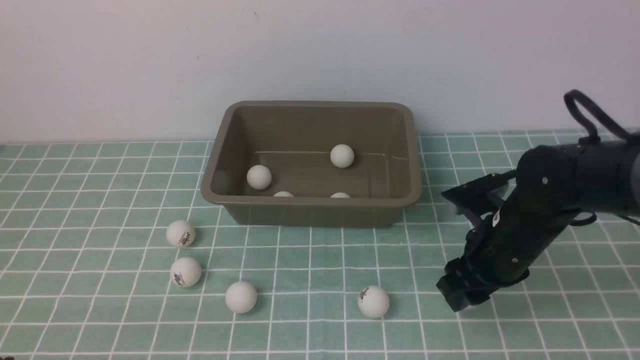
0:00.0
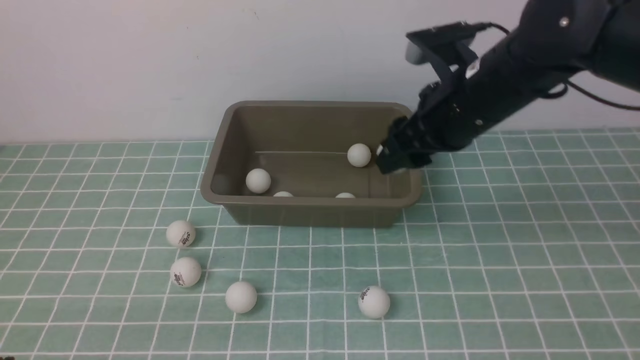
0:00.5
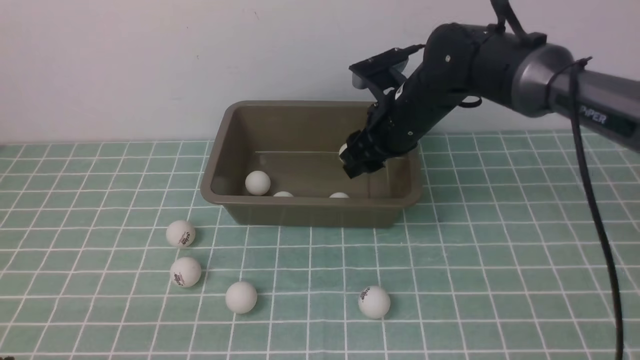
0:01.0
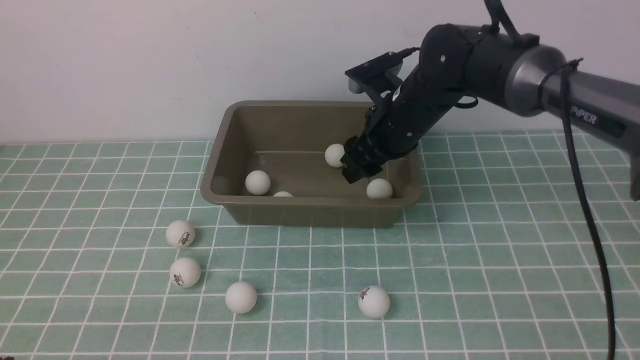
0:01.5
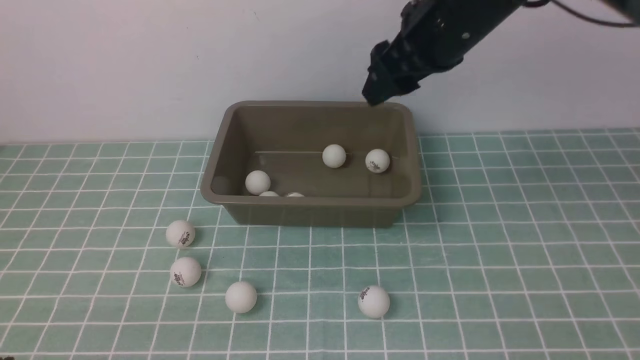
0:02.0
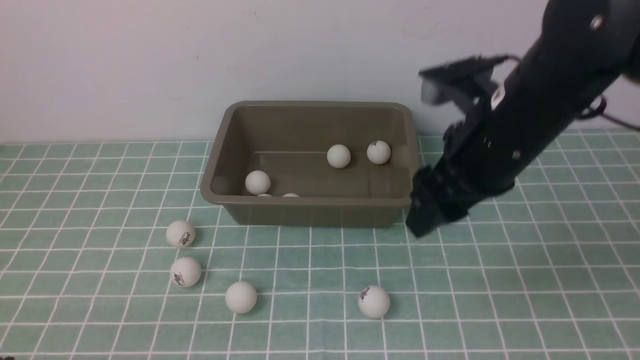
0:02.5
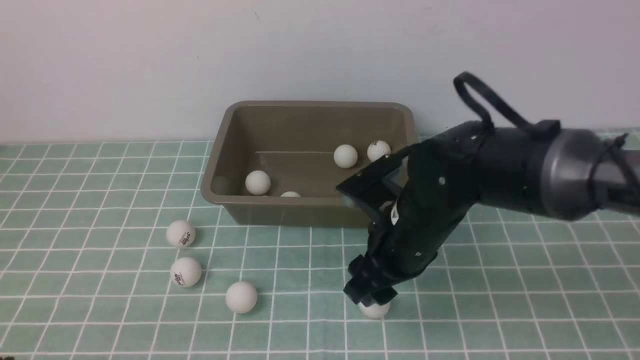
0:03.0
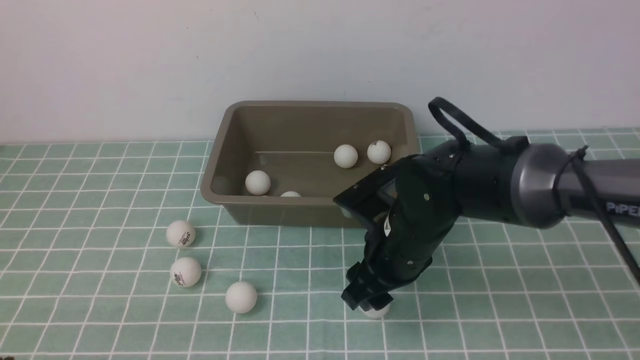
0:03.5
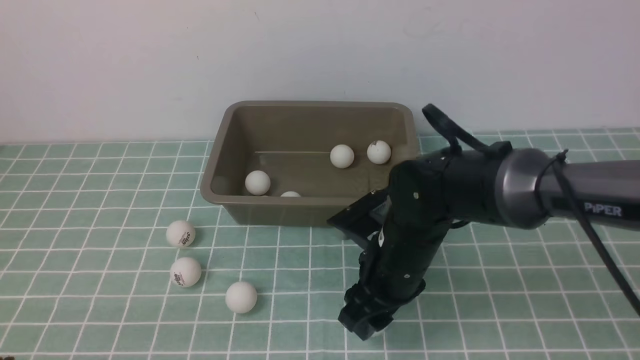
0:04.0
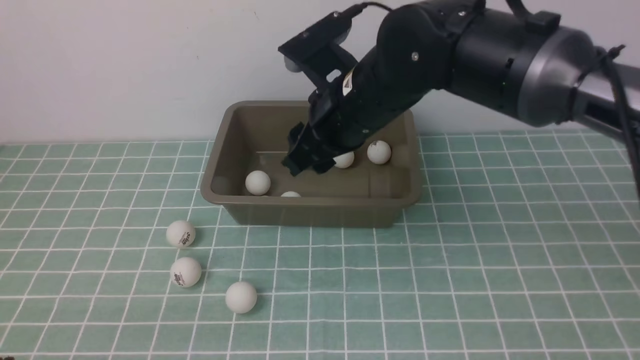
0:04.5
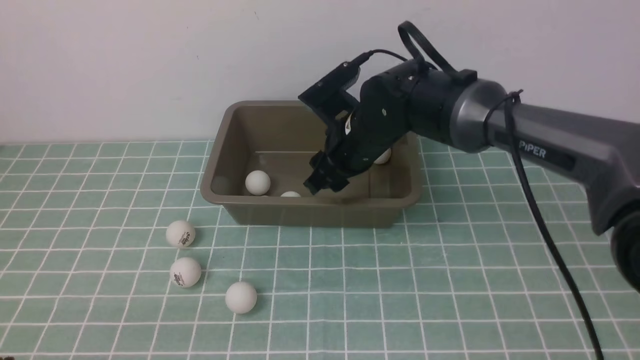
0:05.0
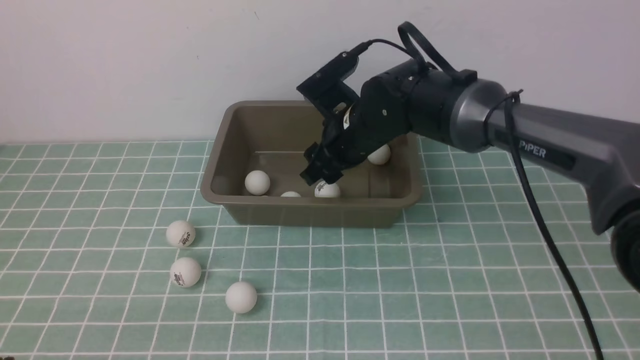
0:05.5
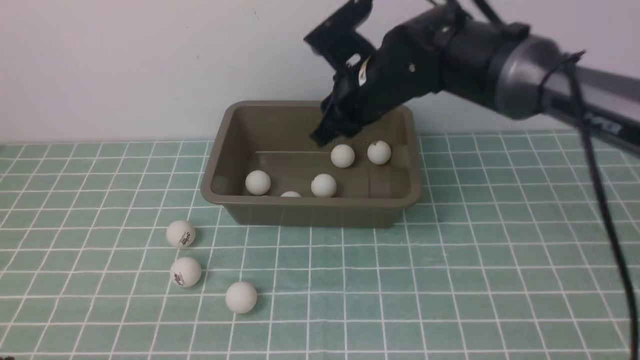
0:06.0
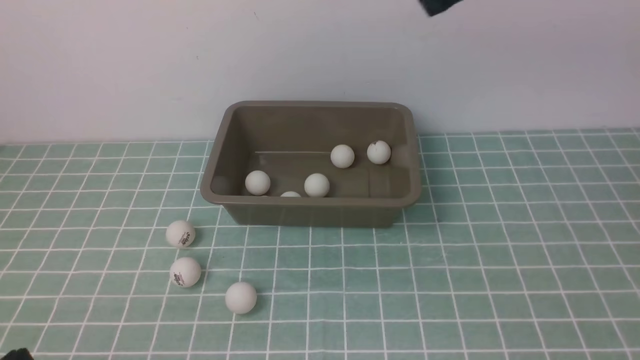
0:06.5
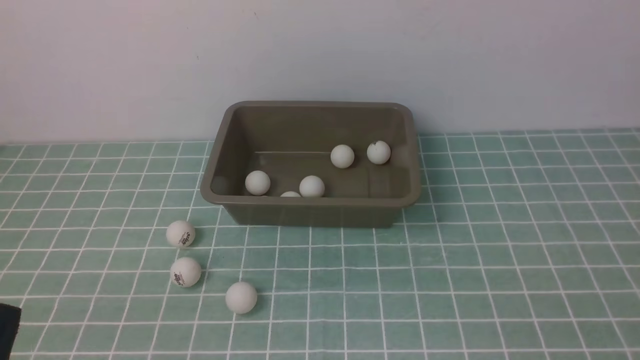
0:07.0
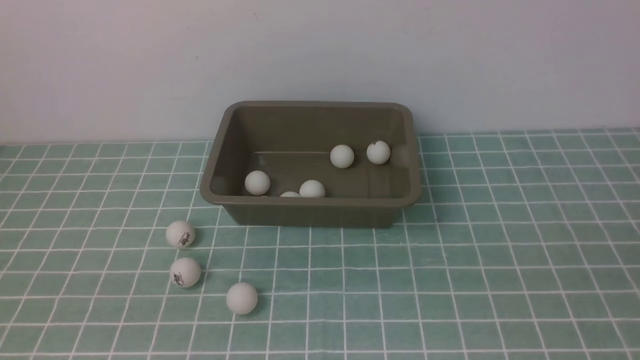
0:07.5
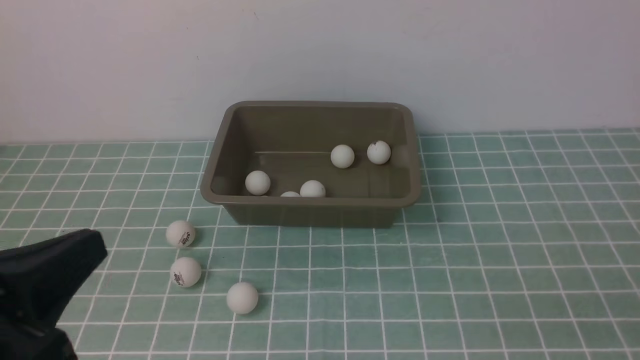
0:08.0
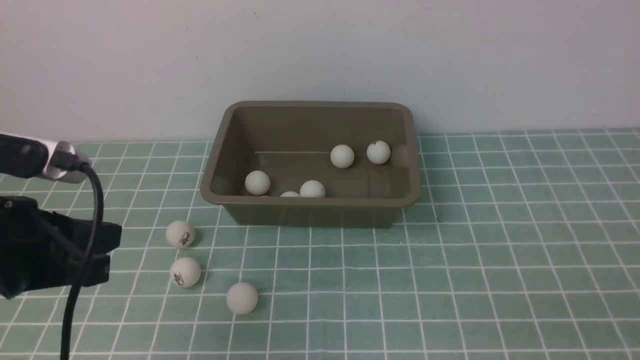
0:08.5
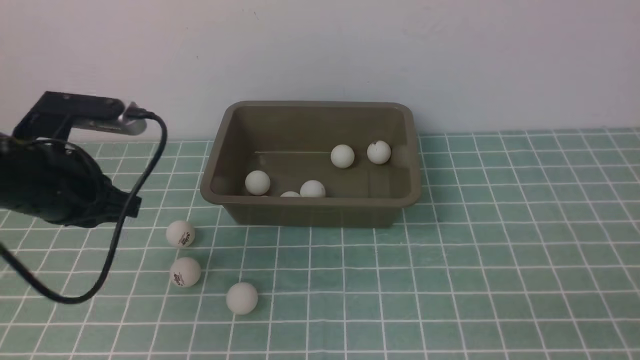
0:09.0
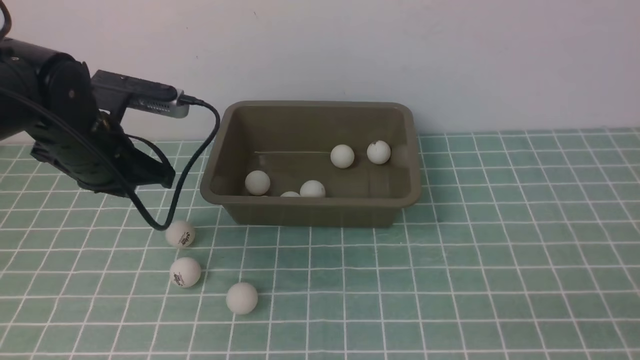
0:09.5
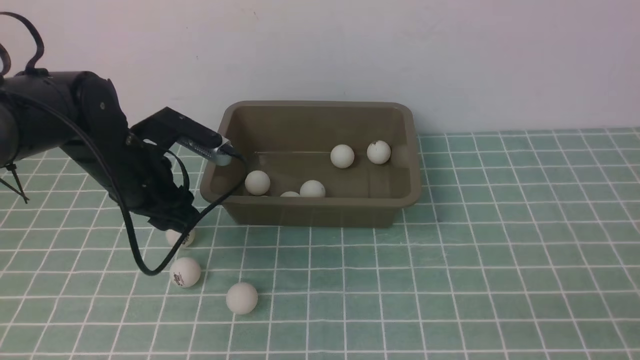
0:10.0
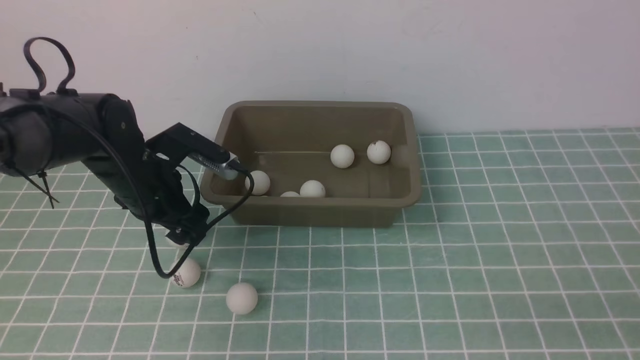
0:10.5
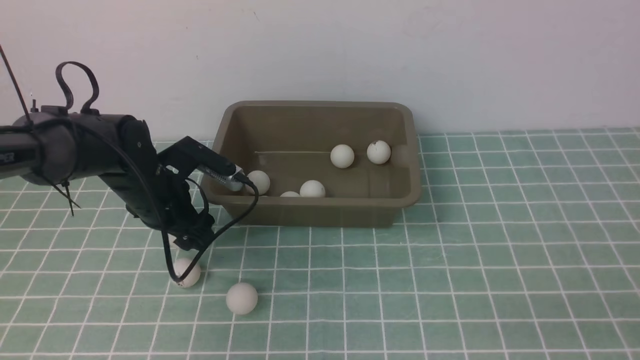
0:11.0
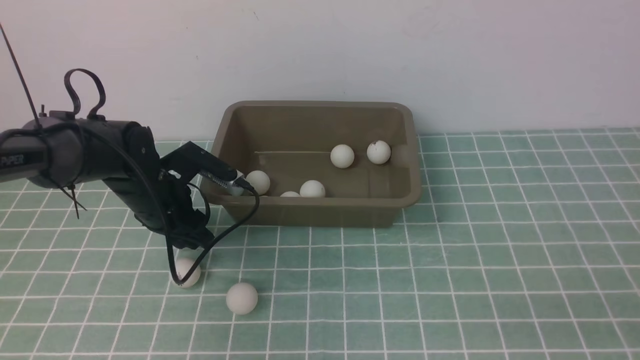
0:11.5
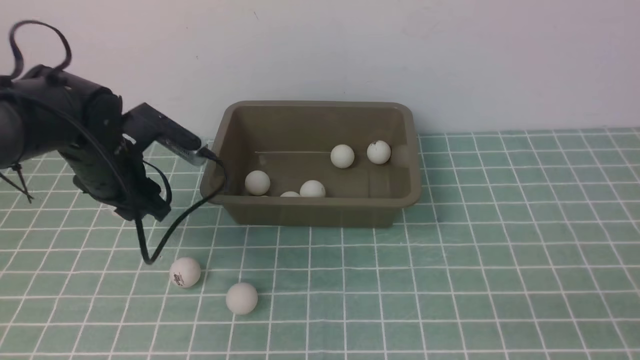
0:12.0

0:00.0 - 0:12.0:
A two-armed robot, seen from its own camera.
Step, 0:00.5 - 0:01.5: use the right arm to put the table tennis ball into the box.
Step, 0:02.0 - 0:04.0: use the right arm to clamp the table tennis ball closest to it.
Step, 0:04.5 - 0:05.5: use the right arm to put the table tennis ball into the box.
0:00.0 - 0:02.0: The right gripper moves upward, approximately 20 cm.
0:02.0 - 0:04.0: The right gripper shifts roughly 20 cm downward and backward.
0:04.0 - 0:06.0: The right gripper goes up and down, some 20 cm each way, reversing 2 times, and closes.
0:06.0 - 0:08.0: The right gripper travels backward and to the right by some 40 cm, while the left gripper heads upward and forward, covering roughly 15 cm.
0:08.0 - 0:10.0: The left gripper shifts about 25 cm forward and downward, and opens.
0:10.0 - 0:12.0: The left gripper goes approximately 10 cm to the right and upward.

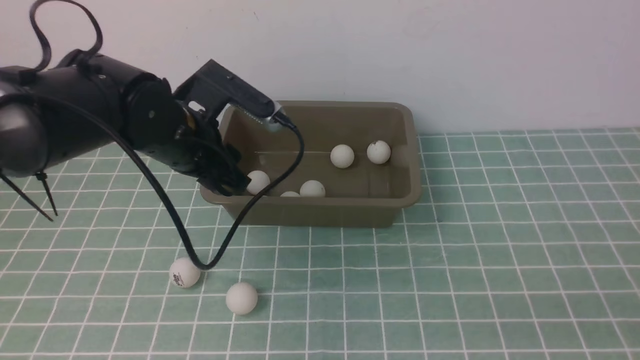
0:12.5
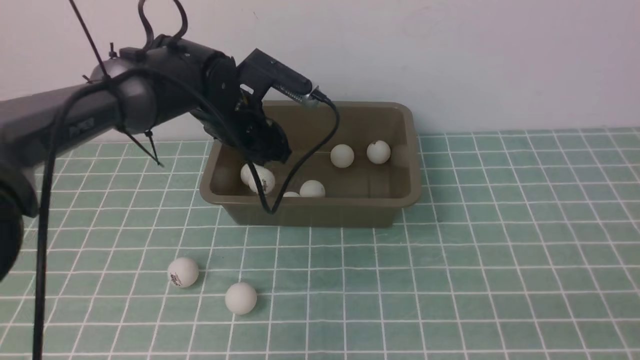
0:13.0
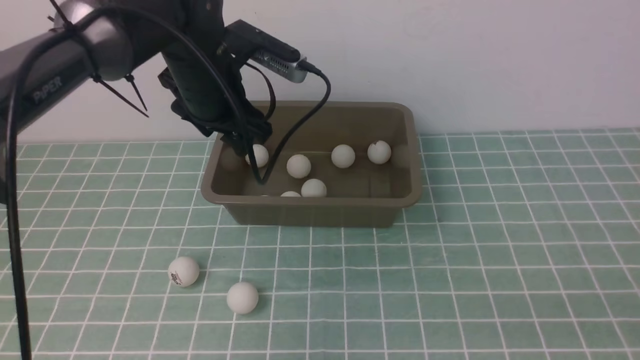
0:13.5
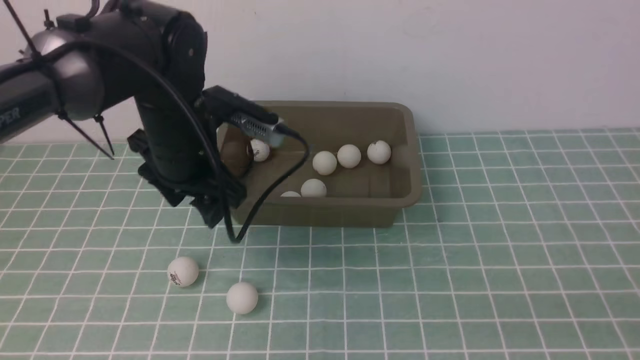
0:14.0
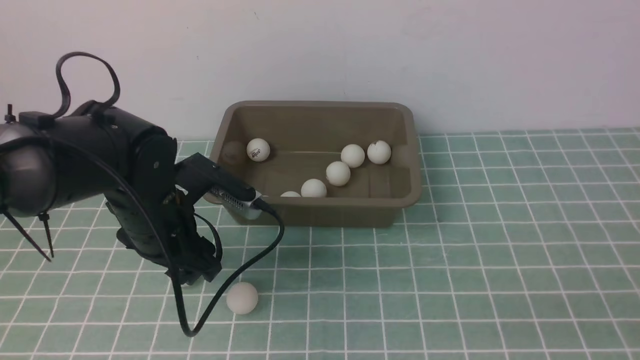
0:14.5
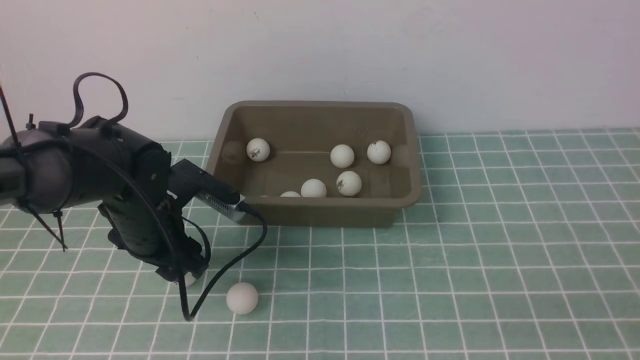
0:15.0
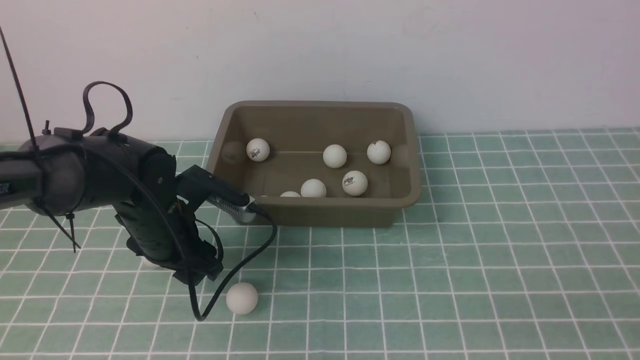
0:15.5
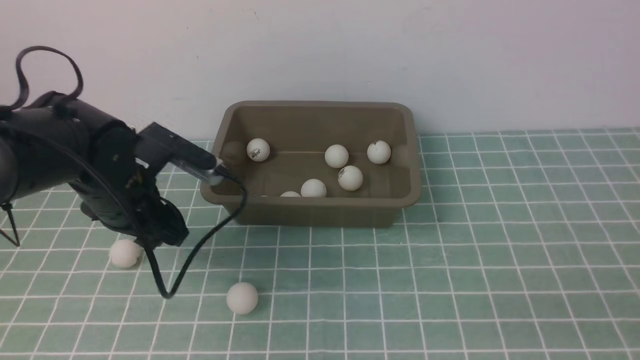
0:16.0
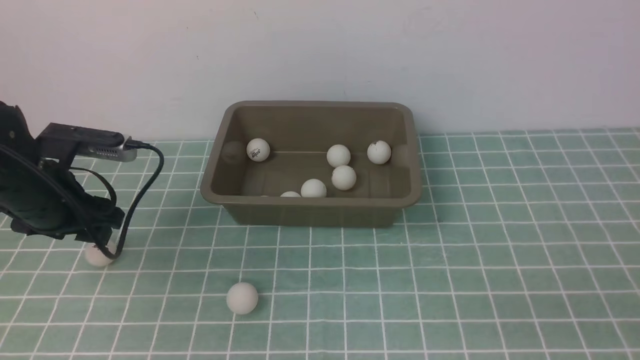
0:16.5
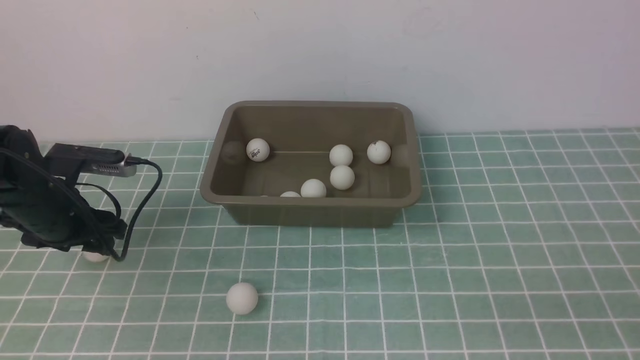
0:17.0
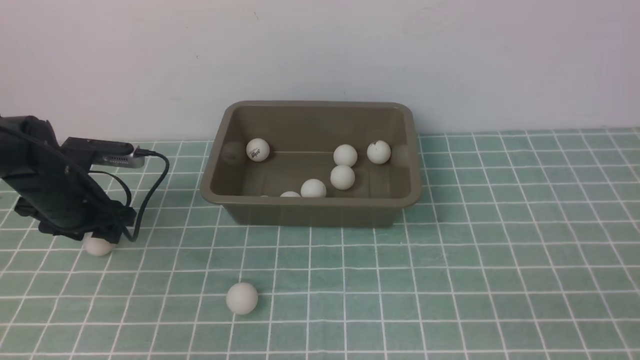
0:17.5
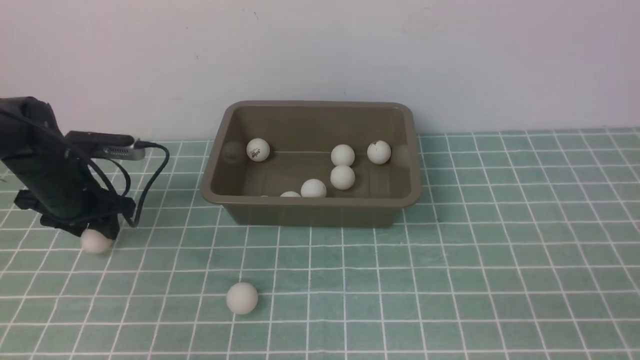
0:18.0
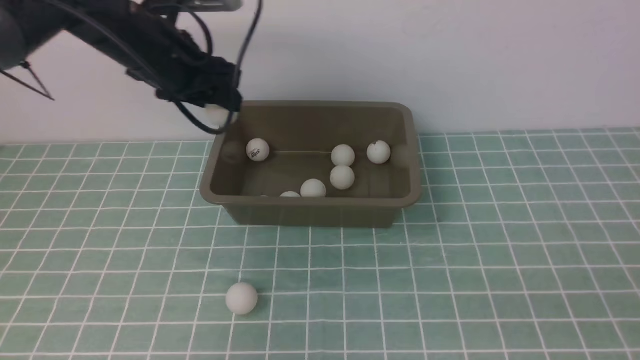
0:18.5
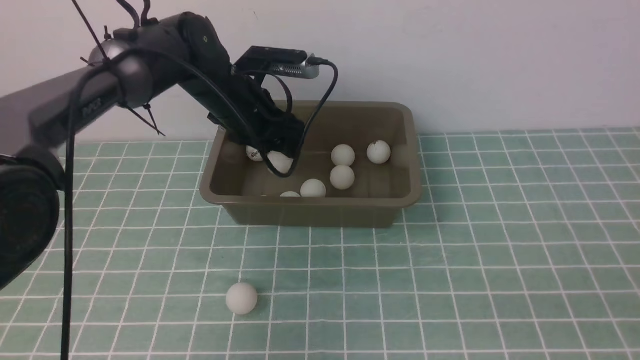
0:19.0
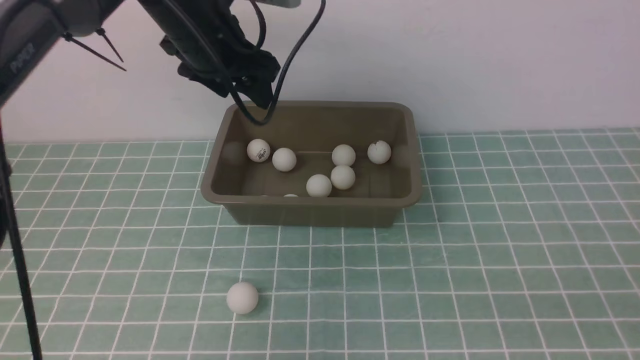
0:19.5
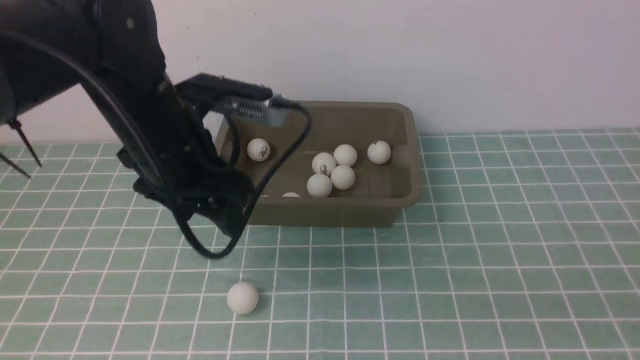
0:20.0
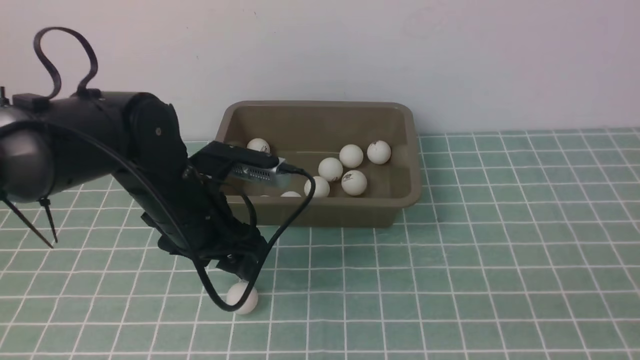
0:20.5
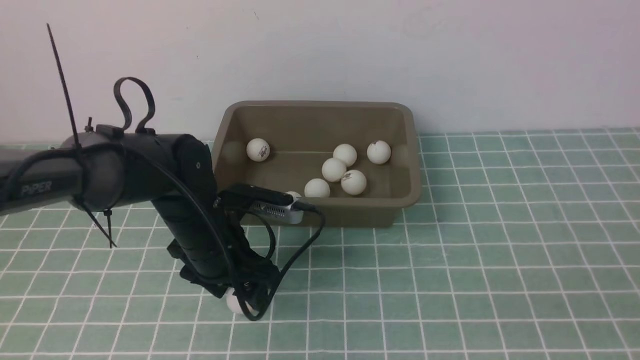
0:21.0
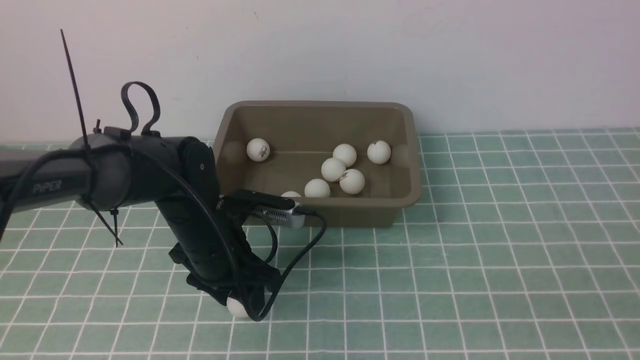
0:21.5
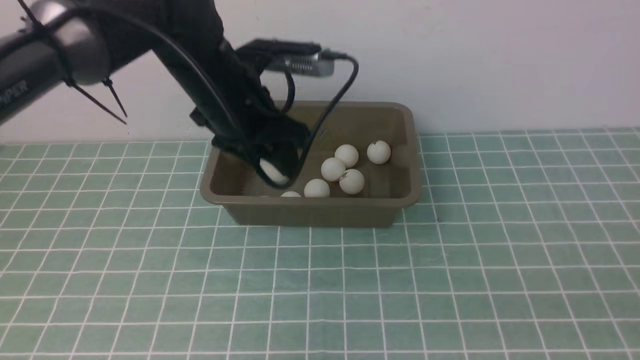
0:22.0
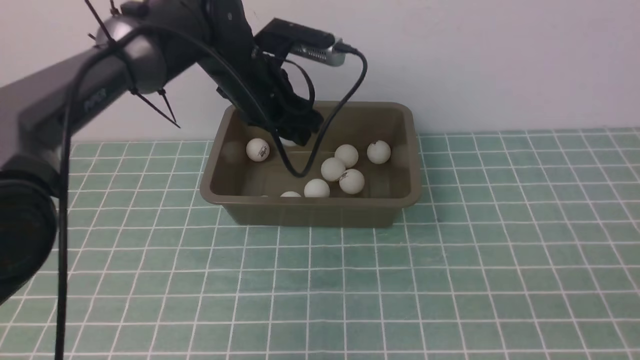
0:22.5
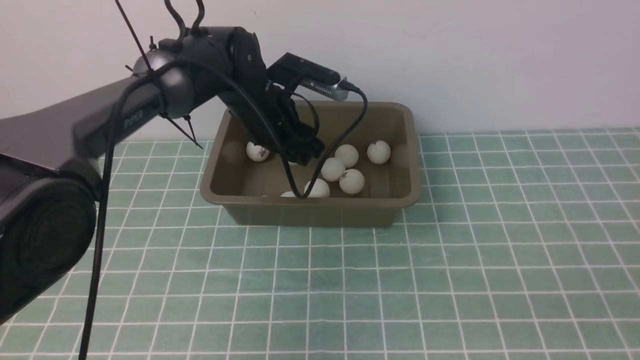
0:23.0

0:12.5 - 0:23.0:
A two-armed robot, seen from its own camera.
Step, 0:13.5 - 0:18.0: use the left arm to clamp the table tennis ball closest to it.
Step, 0:18.5 - 0:19.0: use the left arm to put the table tennis ball into the box.
Step, 0:19.5 - 0:21.5: use the left arm to clamp the table tennis ball closest to it.
0:12.5 - 0:14.5: The left gripper is displaced backward, downward and to the left by roughly 15 cm.
0:14.5 - 0:16.5: The left gripper travels to the left by approximately 15 cm.
0:16.5 - 0:19.0: The left gripper heads to the right and upward, covering about 25 cm.
0:19.0 - 0:21.0: The left gripper shifts some 15 cm downward.
0:21.0 - 0:23.0: The left gripper heads forward and upward, covering approximately 15 cm.
